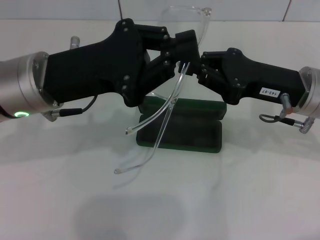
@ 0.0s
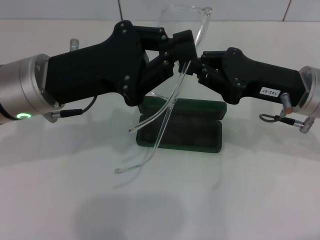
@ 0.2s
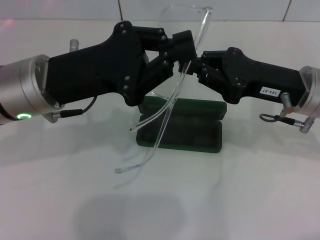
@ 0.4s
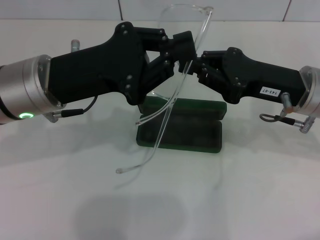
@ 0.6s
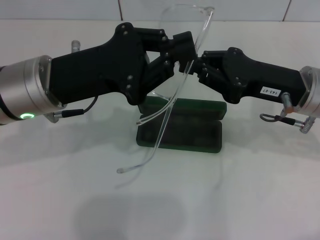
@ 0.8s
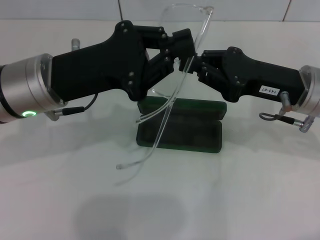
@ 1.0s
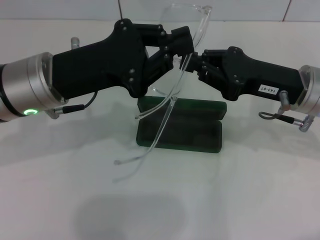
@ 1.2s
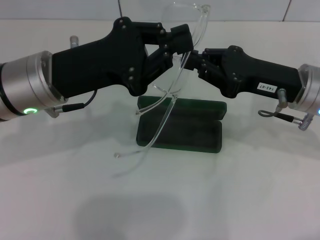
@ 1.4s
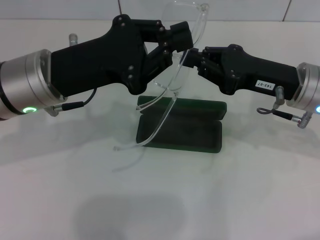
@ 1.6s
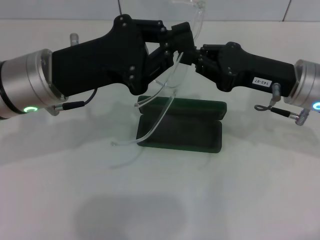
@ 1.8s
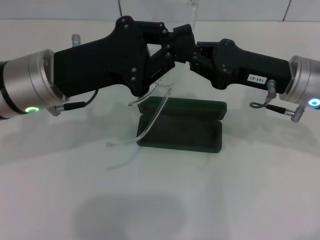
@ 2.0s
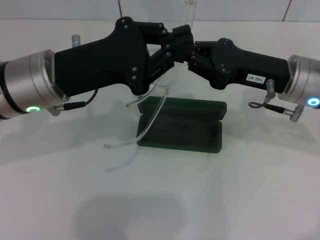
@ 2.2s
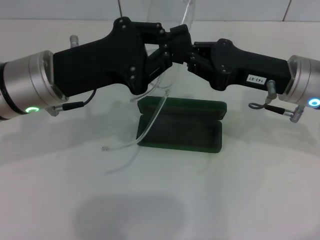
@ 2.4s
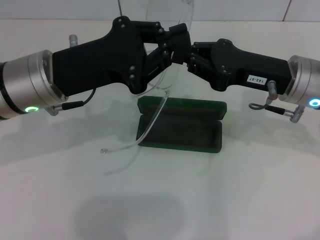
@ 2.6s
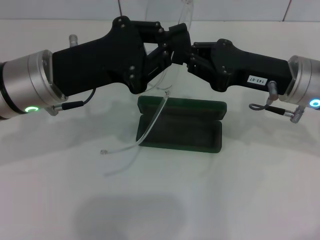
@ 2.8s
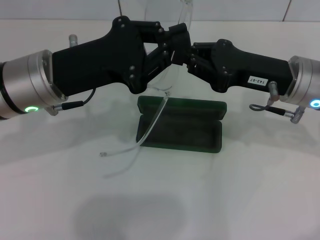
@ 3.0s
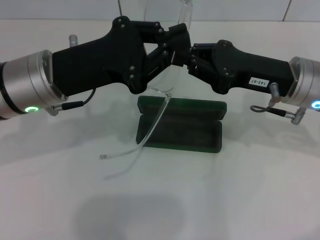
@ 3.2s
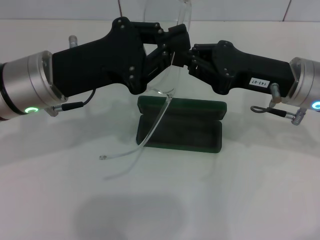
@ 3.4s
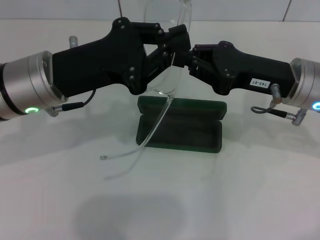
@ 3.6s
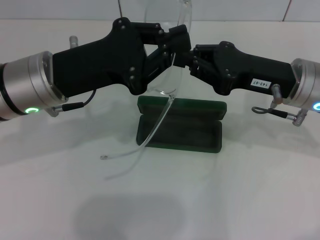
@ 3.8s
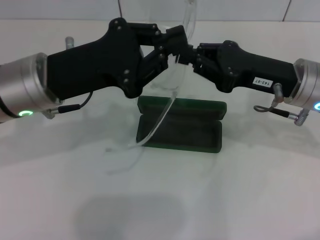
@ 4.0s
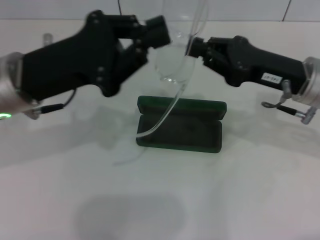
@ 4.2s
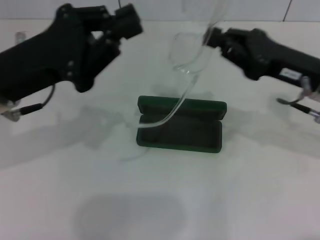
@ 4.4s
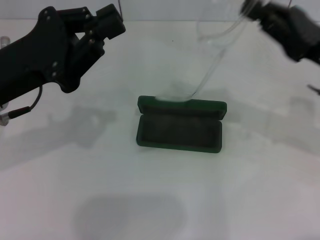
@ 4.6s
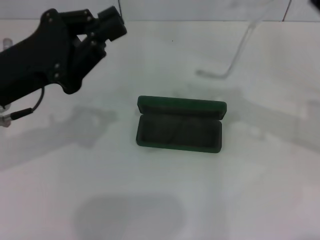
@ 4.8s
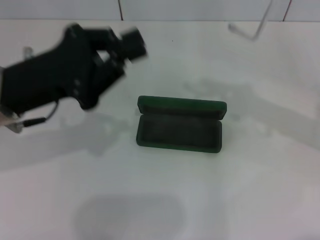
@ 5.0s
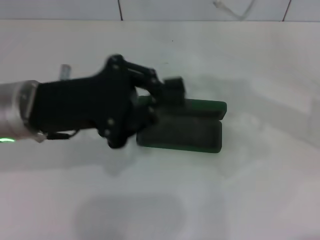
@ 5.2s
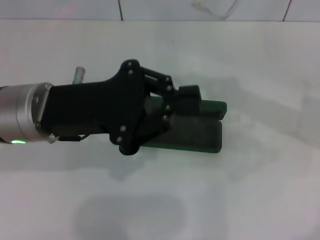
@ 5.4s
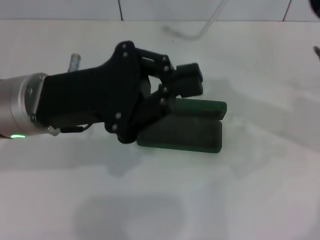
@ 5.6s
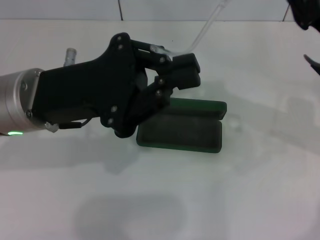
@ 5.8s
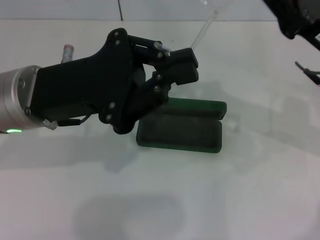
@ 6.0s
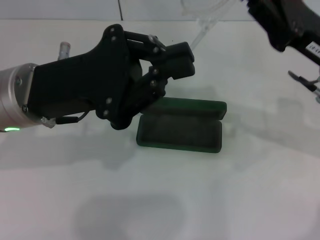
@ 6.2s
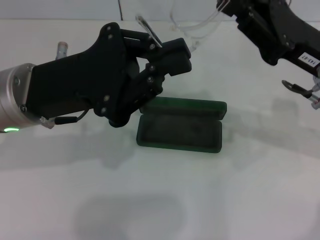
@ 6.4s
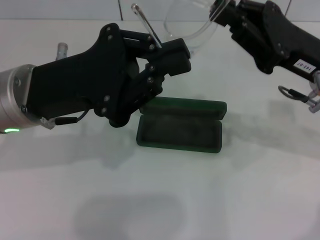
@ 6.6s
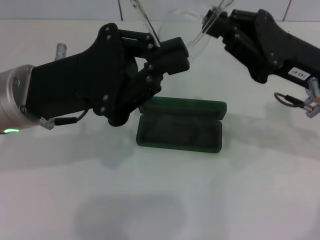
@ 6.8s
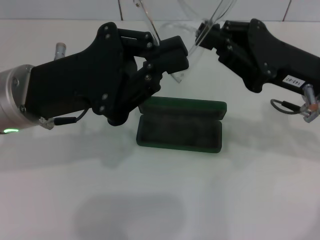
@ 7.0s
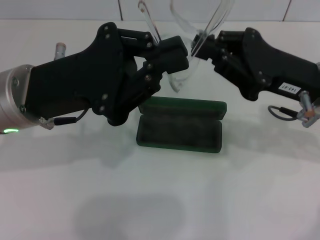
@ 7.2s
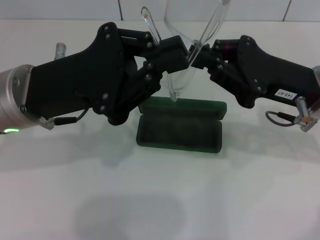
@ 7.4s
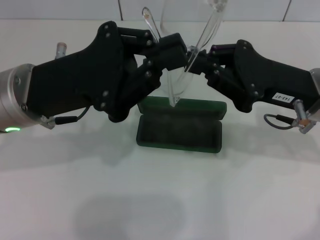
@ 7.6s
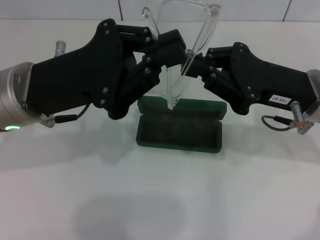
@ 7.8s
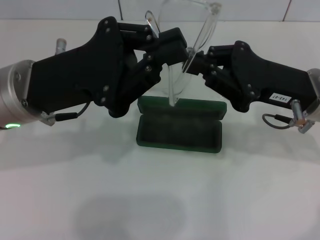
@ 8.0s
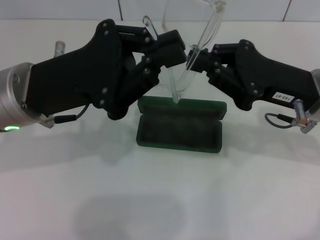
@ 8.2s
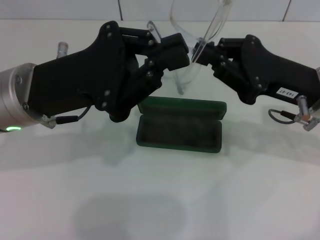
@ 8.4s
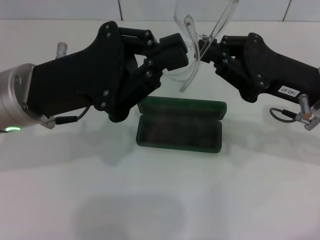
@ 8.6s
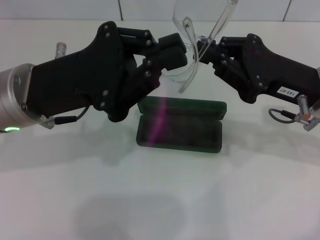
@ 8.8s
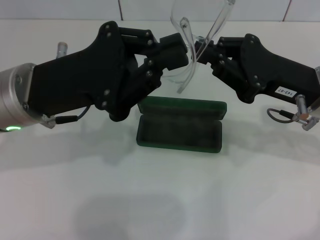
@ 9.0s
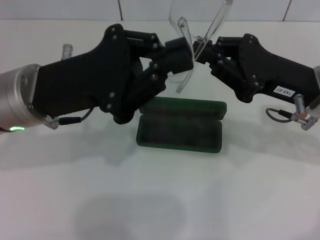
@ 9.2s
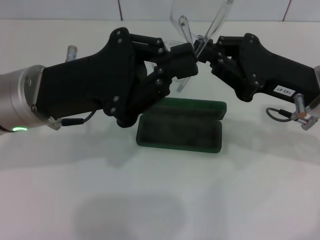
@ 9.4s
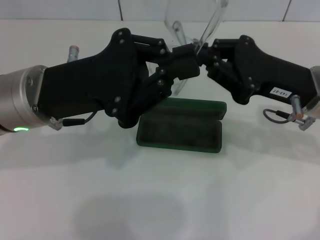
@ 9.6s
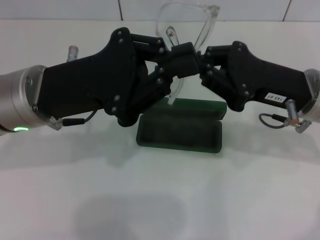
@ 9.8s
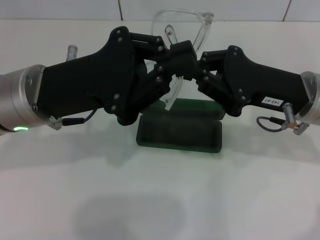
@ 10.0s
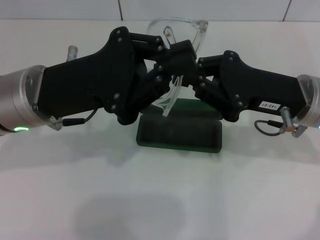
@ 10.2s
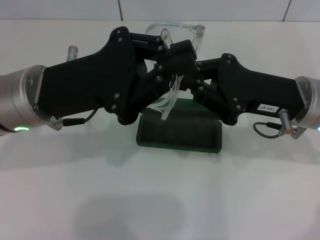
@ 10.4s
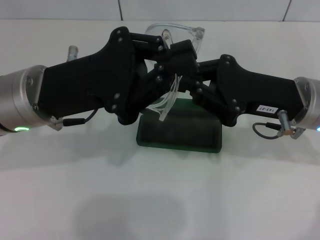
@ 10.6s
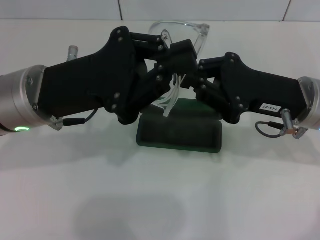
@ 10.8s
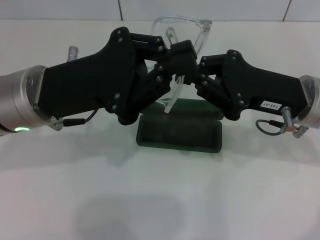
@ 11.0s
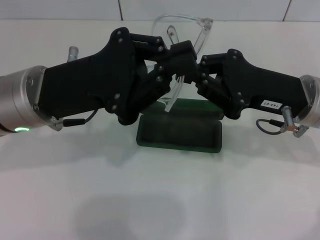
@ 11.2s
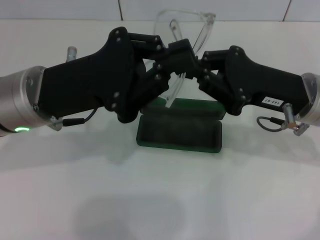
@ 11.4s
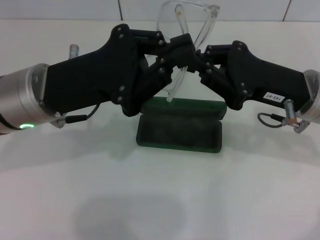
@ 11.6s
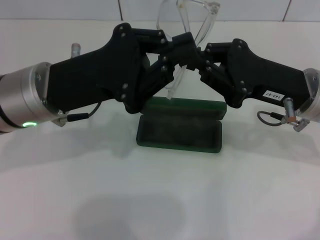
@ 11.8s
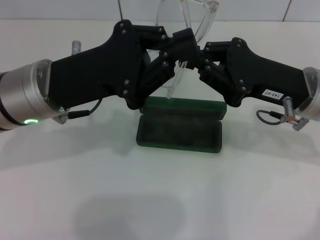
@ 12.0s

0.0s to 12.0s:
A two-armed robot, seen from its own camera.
Step, 0.0s to 10.4s: Fold the frame with your left hand.
0.0s to 3.0s: The grippers move only a little.
6.0s to 9.0s: There are only small adjustments of the grippers.
9.0s to 12.0s: There are only small adjustments of the grippers.

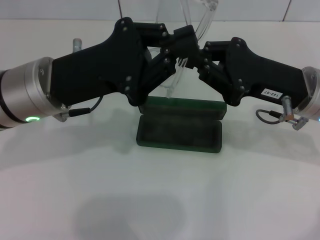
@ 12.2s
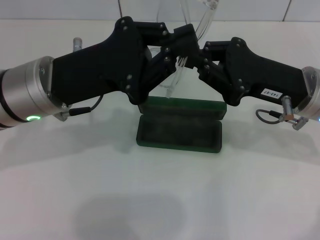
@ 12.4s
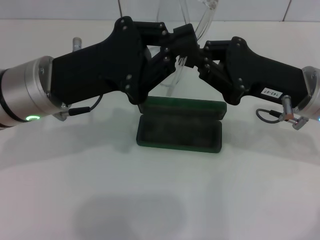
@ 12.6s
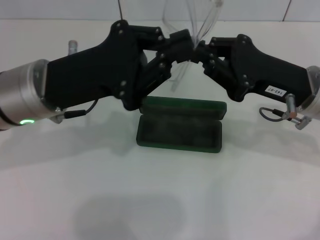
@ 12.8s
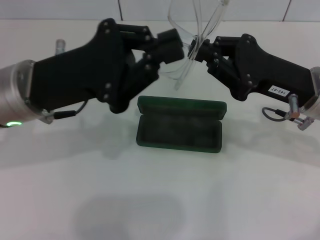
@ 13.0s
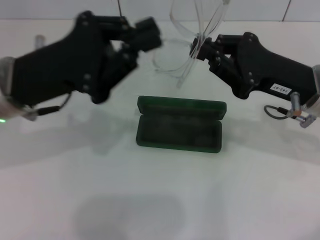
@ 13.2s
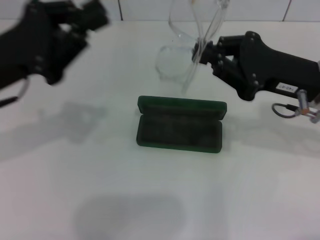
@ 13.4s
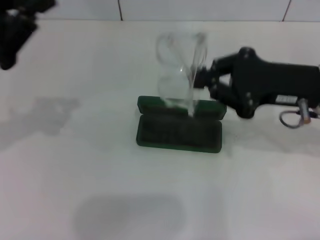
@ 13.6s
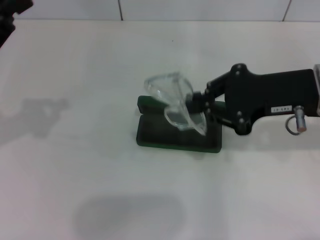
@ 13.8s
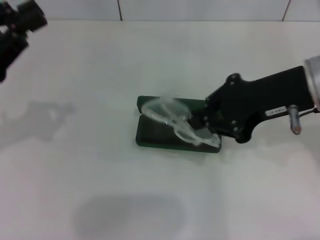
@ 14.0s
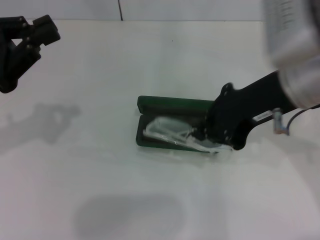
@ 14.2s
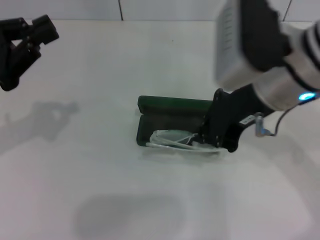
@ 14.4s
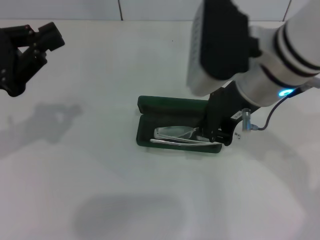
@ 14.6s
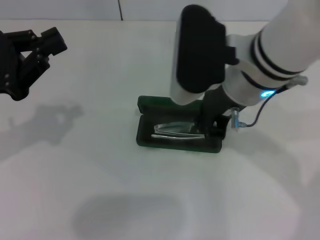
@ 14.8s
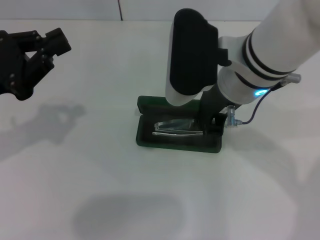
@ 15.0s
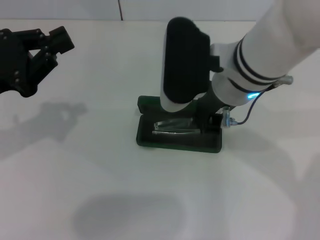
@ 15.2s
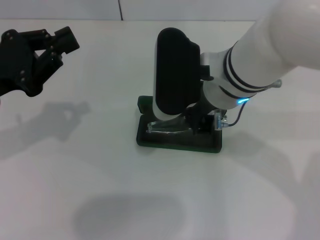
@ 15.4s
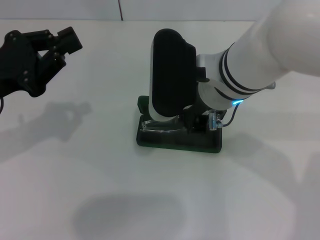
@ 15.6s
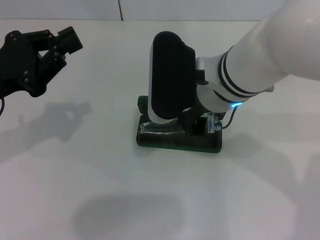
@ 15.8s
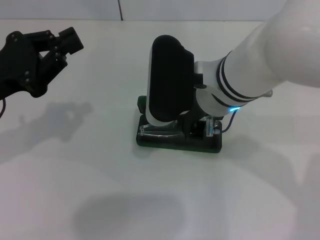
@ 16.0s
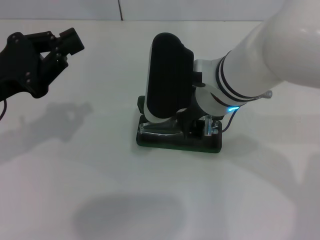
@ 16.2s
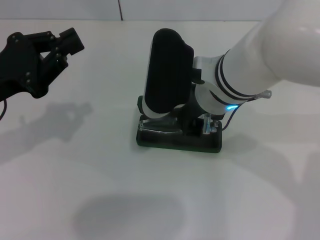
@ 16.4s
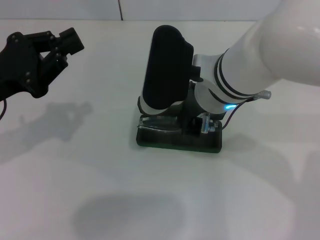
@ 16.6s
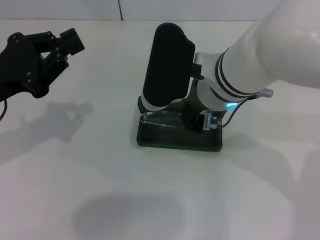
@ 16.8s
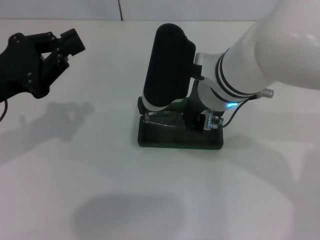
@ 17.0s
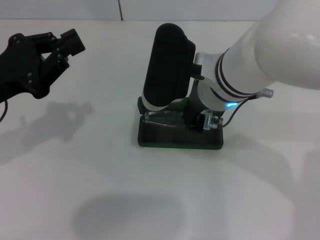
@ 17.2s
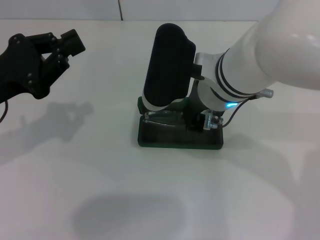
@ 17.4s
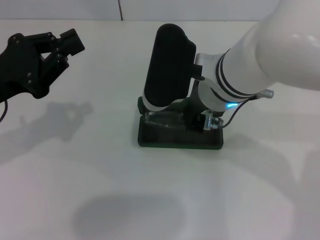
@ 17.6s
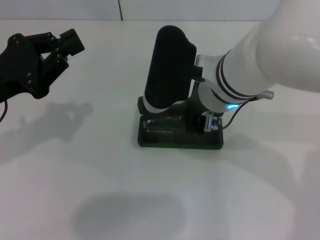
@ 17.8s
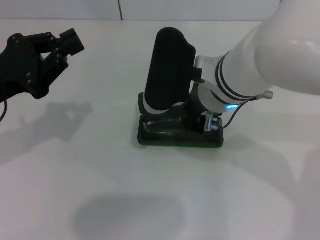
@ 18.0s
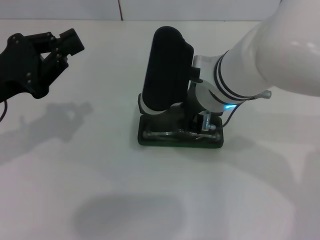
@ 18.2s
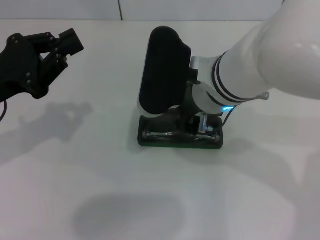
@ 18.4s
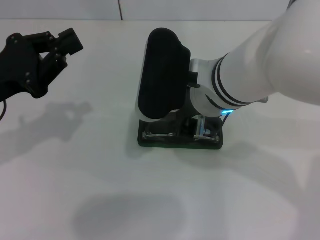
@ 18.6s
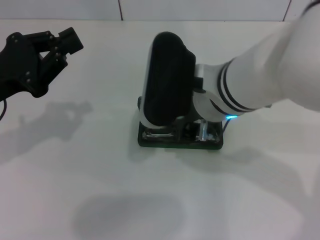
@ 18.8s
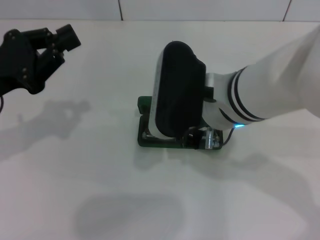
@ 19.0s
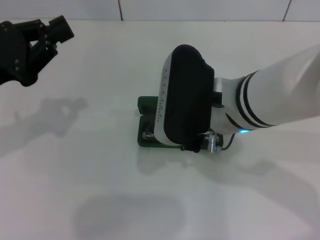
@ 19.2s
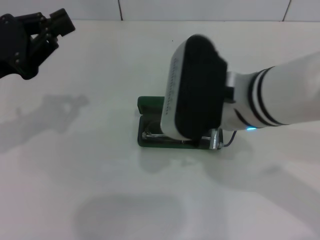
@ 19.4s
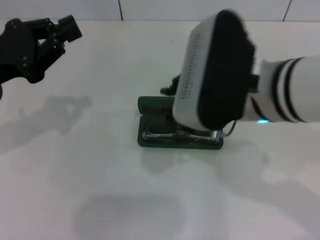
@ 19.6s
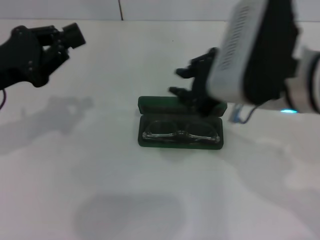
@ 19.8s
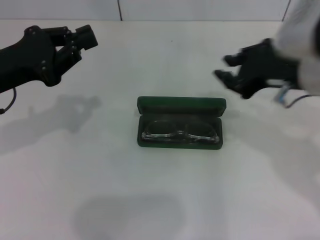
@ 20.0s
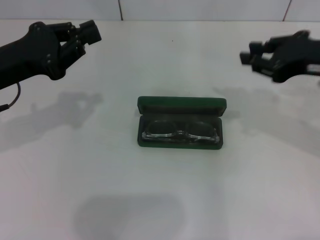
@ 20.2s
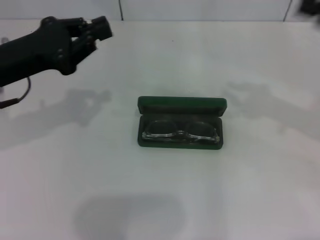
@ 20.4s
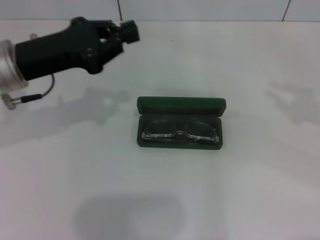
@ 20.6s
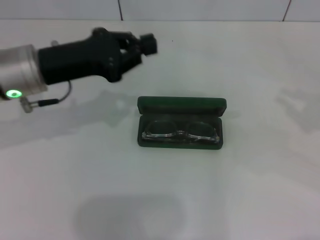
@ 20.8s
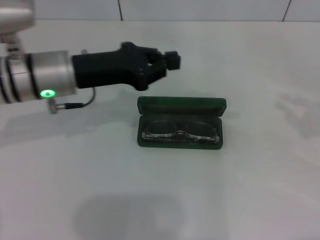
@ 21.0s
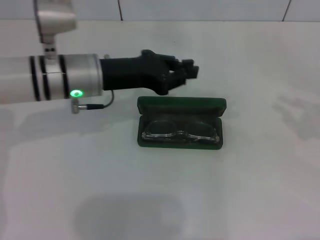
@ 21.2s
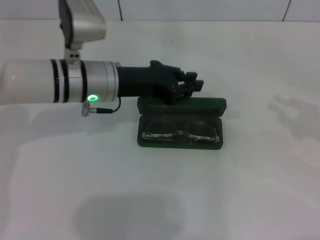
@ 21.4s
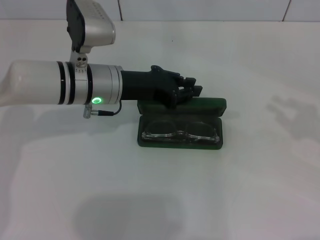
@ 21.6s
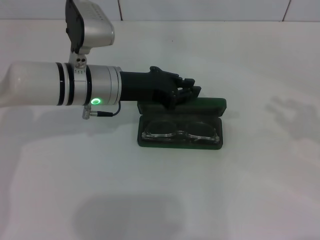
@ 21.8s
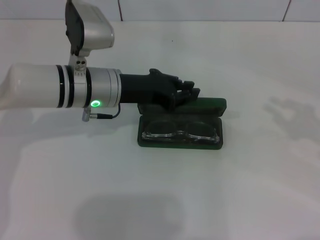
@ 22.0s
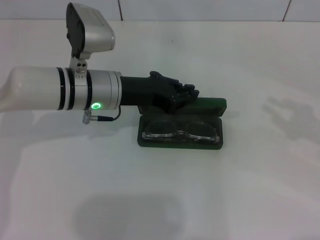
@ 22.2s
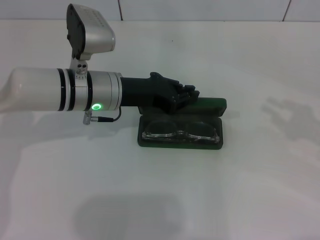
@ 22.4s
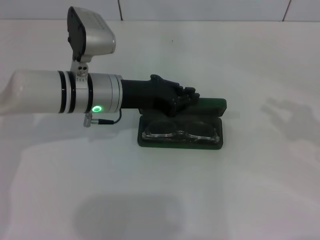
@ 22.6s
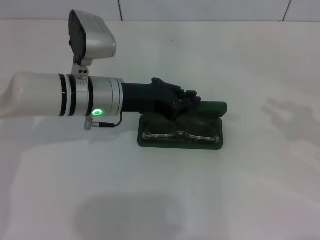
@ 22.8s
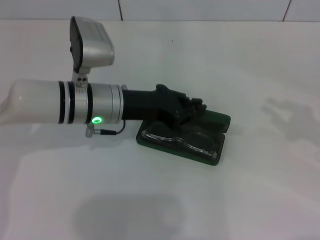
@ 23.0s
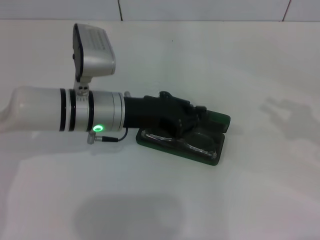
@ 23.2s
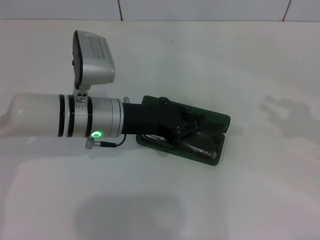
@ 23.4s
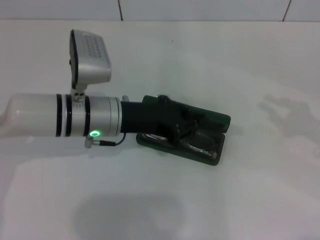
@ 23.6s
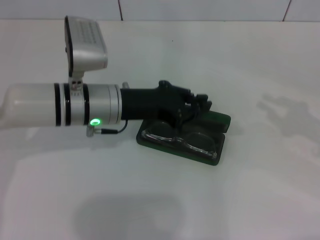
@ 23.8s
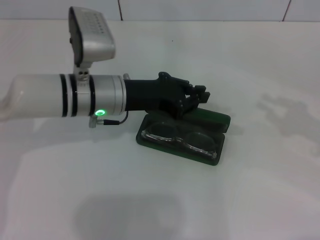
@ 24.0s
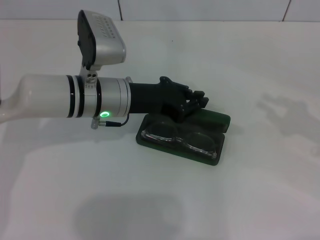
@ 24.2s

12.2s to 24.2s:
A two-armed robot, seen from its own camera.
Step, 12.2s to 18.0s: Put the glasses into the case with your right hand.
12.2s to 13.8s: The left gripper heads to the left, covering about 15 cm, while the right gripper moves upward, roughly 5 cm.
13.8s to 15.2s: The right gripper shifts approximately 15 cm to the left.
15.2s to 16.6s: The grippers move only a little.
16.6s to 18.2s: Both grippers stay put.
18.2s to 19.8s: The right gripper heads to the right and backward, covering roughly 10 cm.
19.8s to 21.2s: The right gripper goes roughly 25 cm to the right; the left gripper travels to the right and forward by roughly 15 cm.
21.2s to 24.2s: The grippers move only a little.
